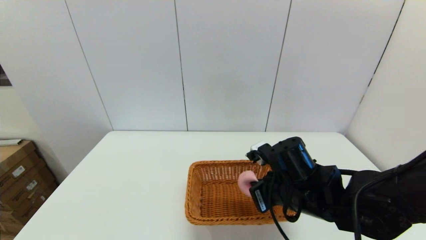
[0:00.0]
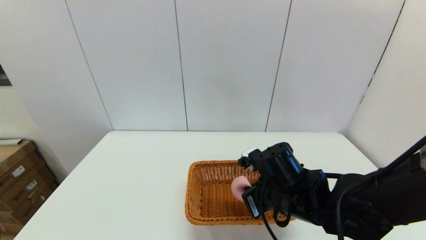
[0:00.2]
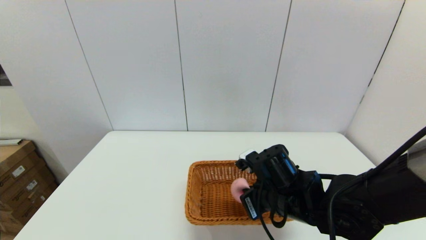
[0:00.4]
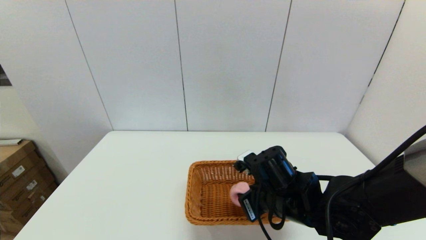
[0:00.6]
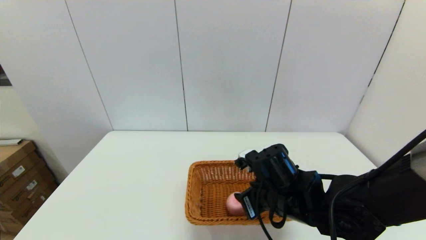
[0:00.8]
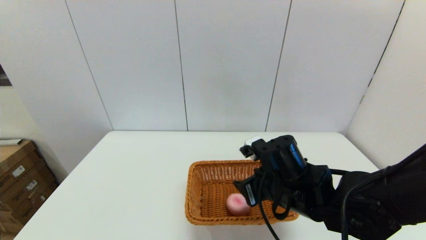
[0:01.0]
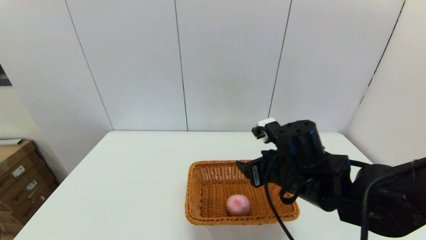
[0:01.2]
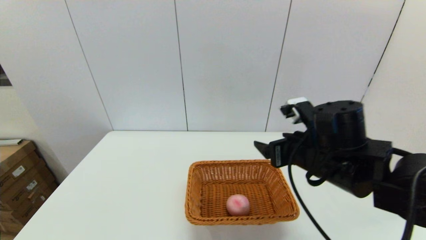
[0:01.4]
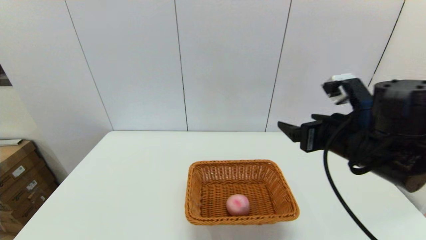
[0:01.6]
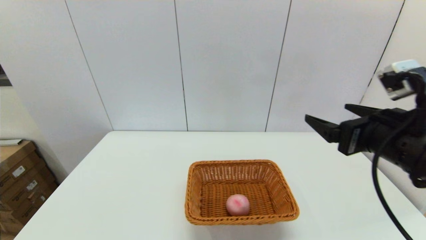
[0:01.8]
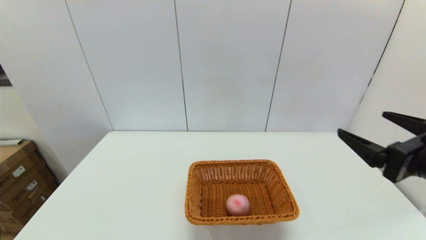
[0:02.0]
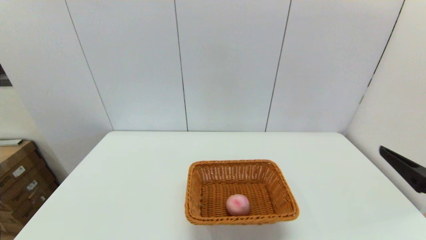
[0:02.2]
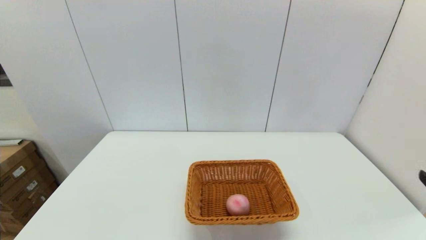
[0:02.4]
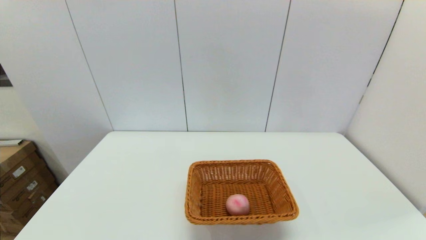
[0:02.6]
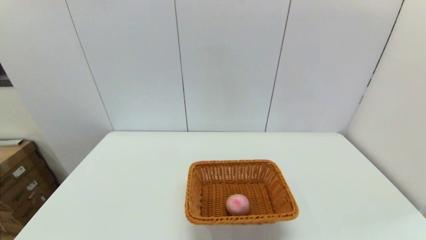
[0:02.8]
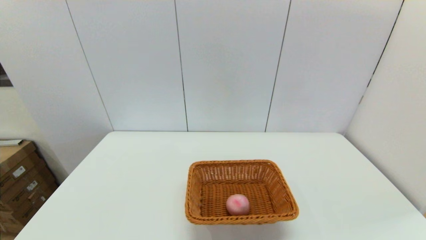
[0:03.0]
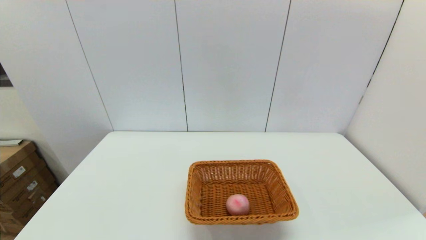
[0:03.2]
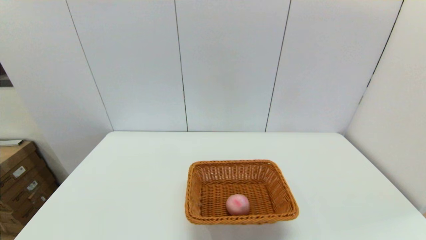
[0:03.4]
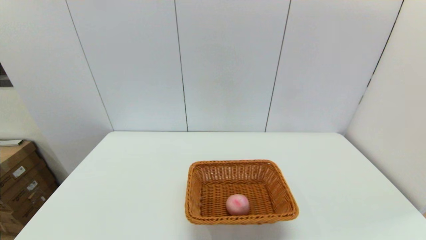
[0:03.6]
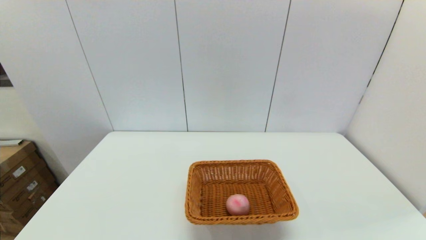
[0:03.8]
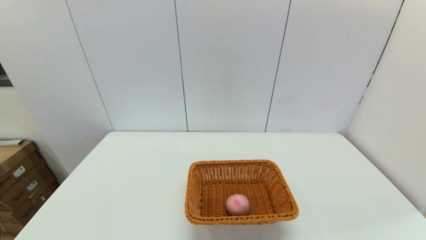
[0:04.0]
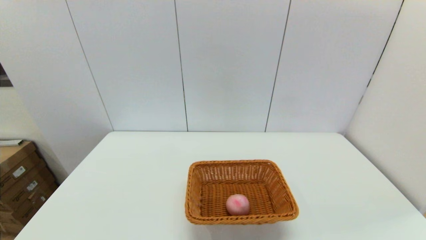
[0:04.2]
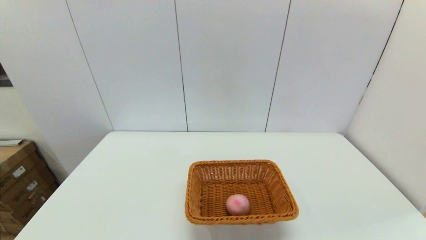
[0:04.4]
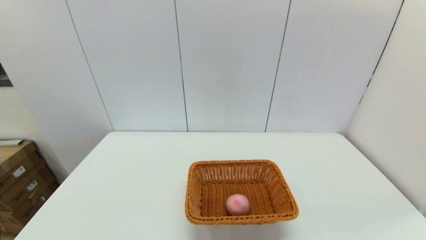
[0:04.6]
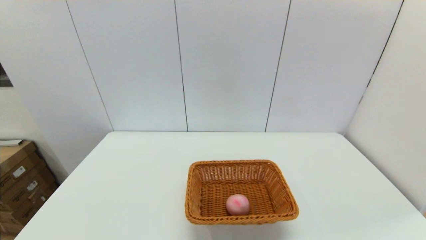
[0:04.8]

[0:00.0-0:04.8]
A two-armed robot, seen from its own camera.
0:00.0 to 0:01.6: The right gripper travels upward and to the right by roughly 15 cm, and opens.
0:01.6 to 0:03.2: The right gripper heads backward and to the right, covering approximately 30 cm.

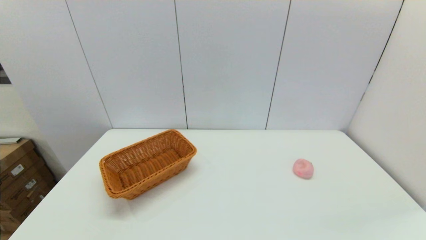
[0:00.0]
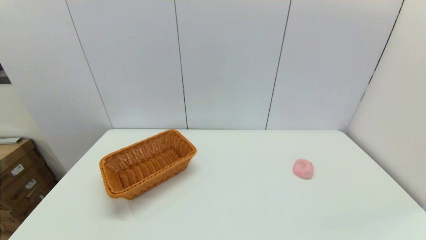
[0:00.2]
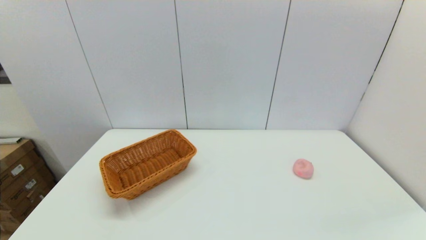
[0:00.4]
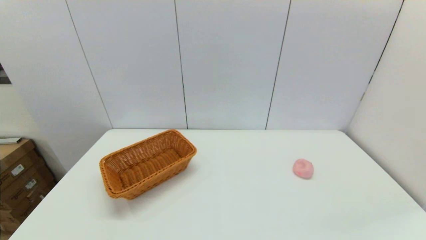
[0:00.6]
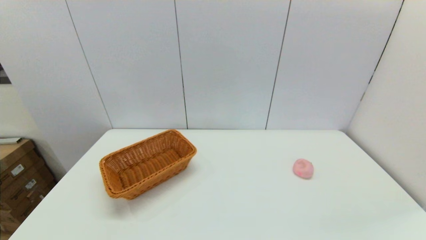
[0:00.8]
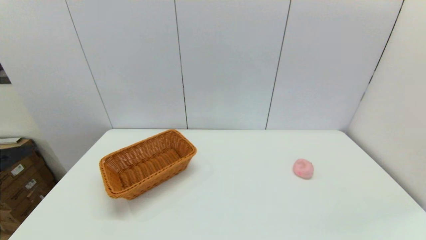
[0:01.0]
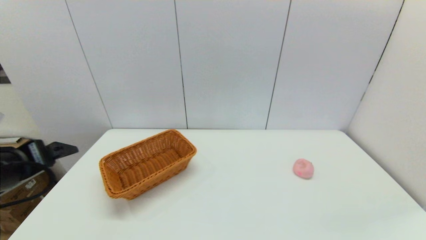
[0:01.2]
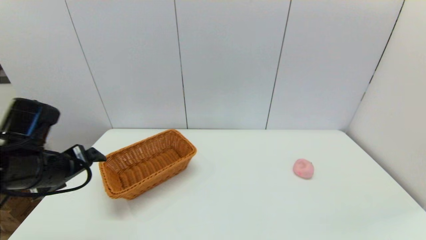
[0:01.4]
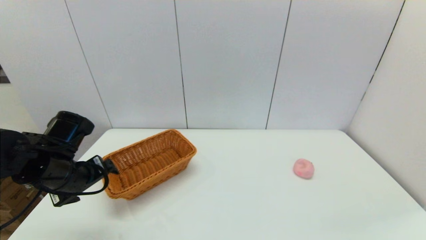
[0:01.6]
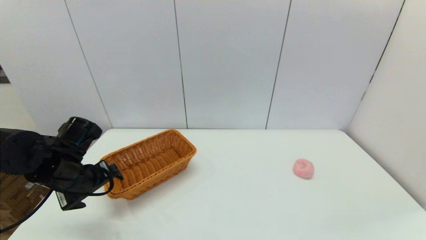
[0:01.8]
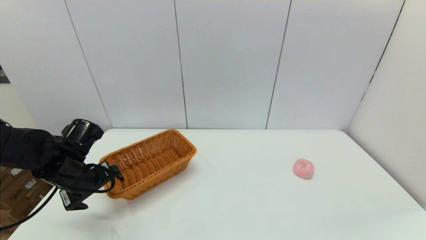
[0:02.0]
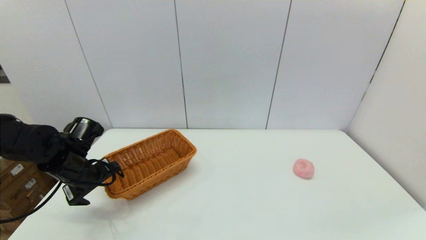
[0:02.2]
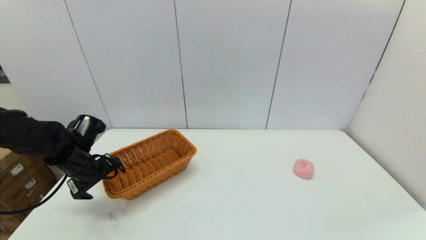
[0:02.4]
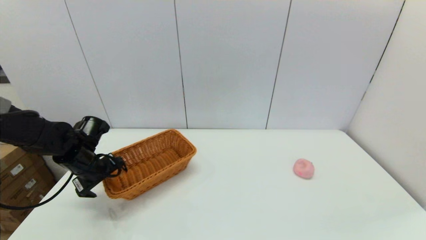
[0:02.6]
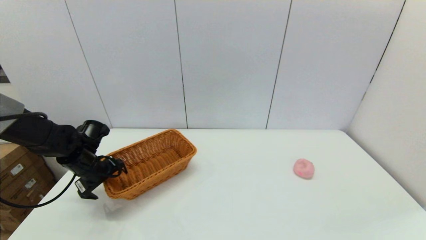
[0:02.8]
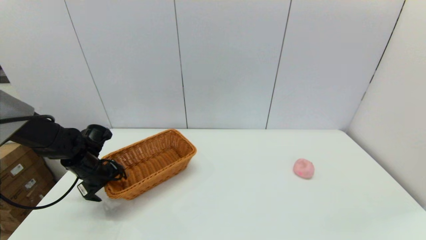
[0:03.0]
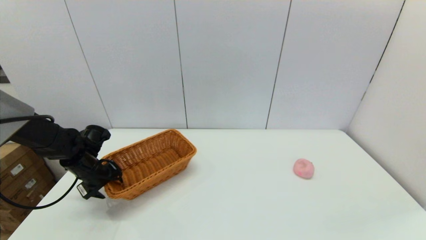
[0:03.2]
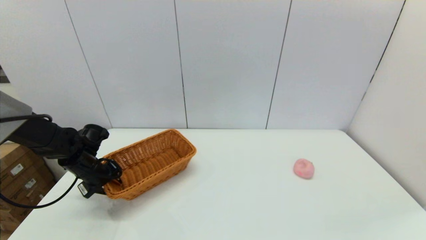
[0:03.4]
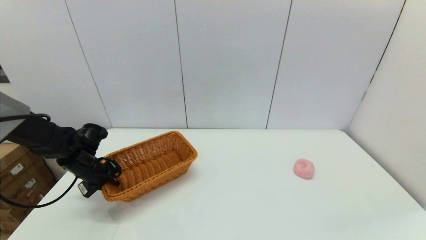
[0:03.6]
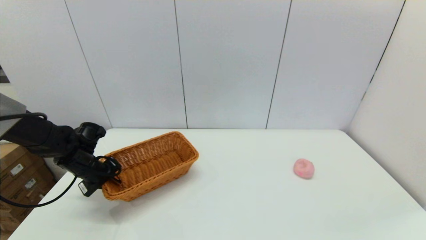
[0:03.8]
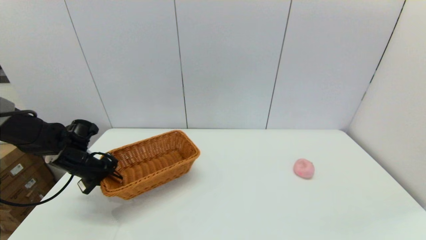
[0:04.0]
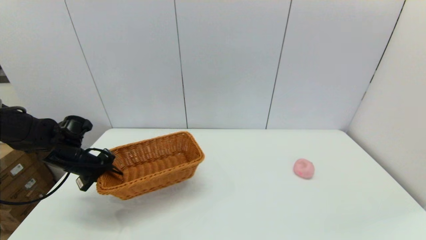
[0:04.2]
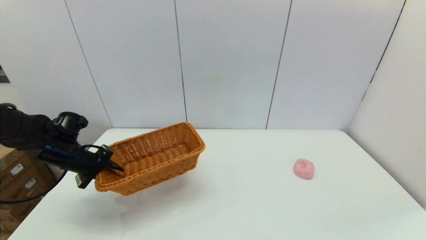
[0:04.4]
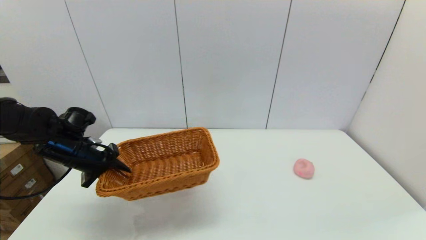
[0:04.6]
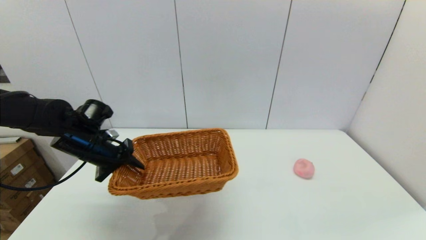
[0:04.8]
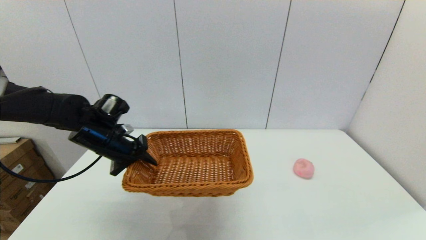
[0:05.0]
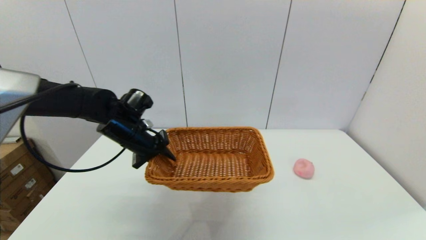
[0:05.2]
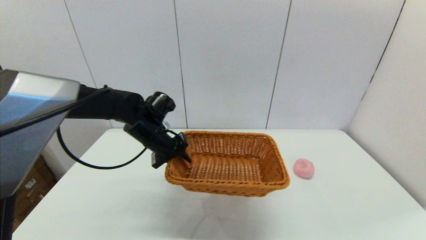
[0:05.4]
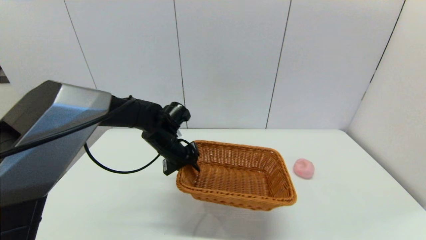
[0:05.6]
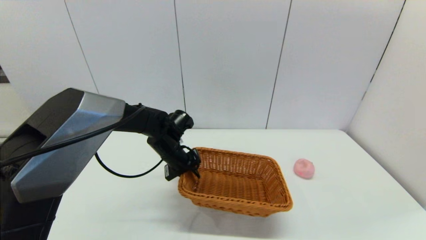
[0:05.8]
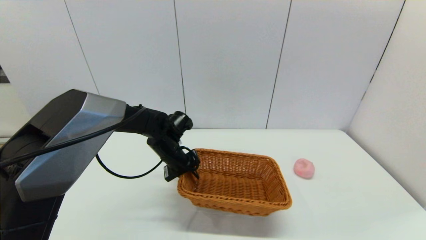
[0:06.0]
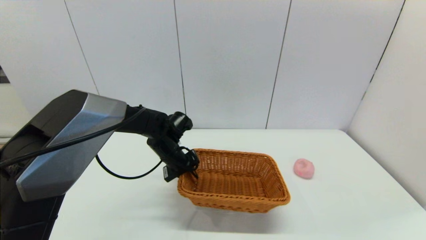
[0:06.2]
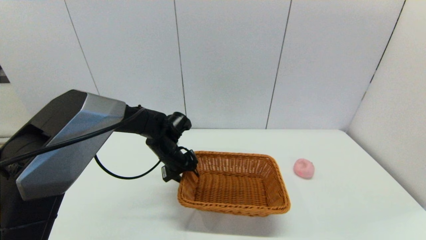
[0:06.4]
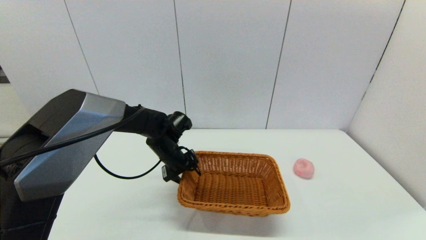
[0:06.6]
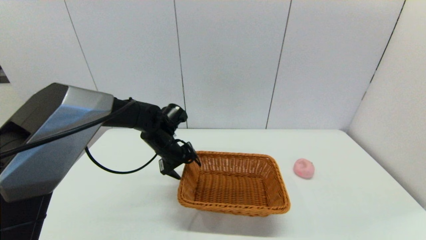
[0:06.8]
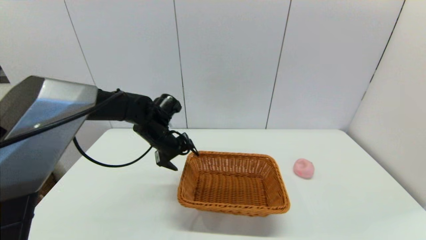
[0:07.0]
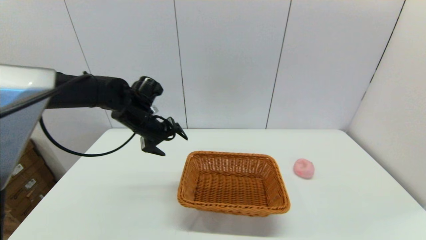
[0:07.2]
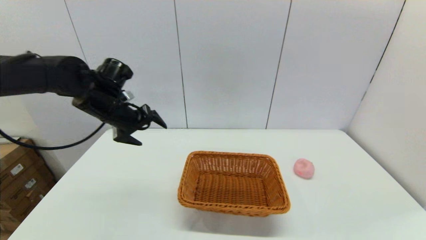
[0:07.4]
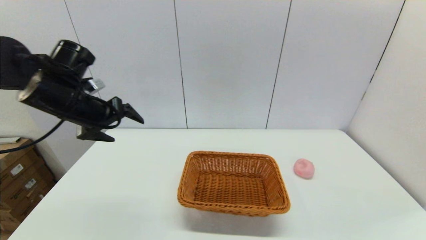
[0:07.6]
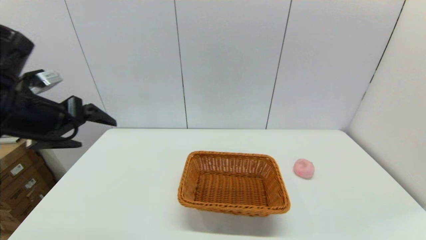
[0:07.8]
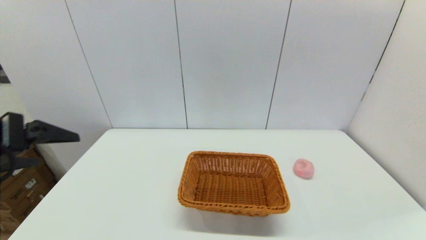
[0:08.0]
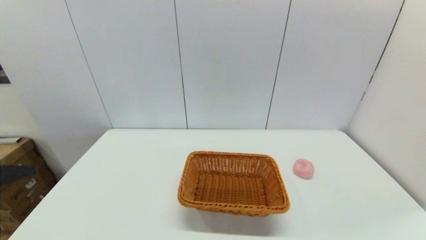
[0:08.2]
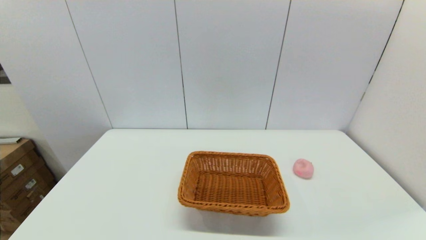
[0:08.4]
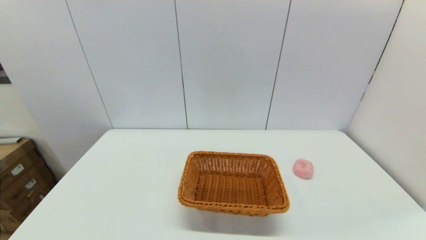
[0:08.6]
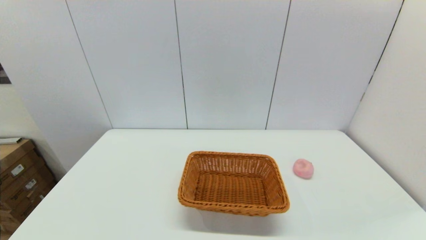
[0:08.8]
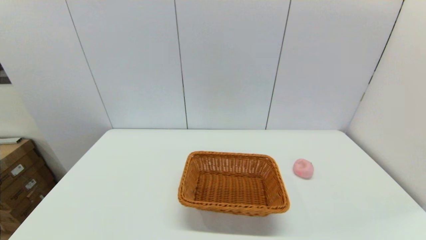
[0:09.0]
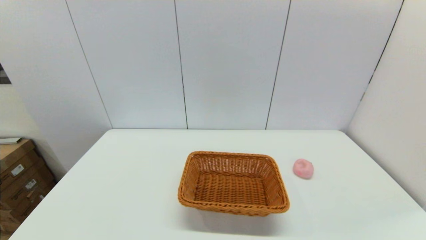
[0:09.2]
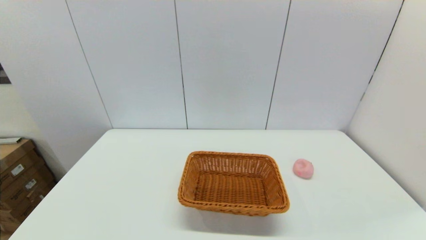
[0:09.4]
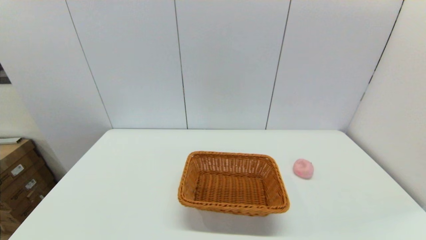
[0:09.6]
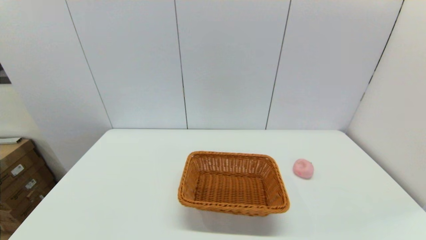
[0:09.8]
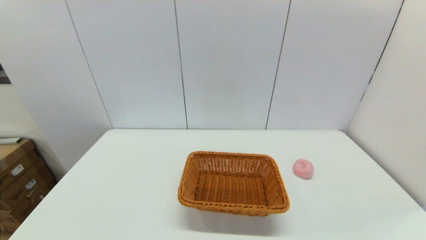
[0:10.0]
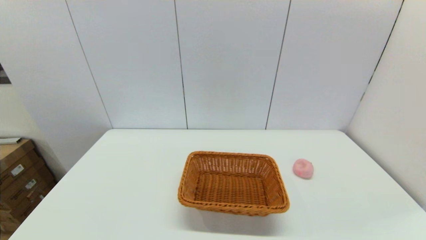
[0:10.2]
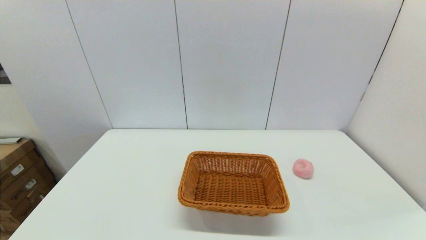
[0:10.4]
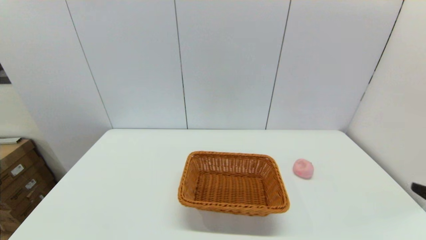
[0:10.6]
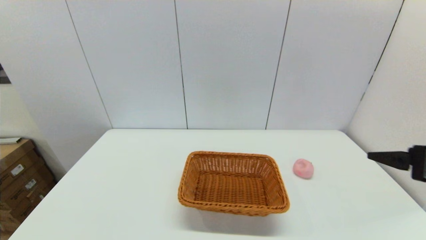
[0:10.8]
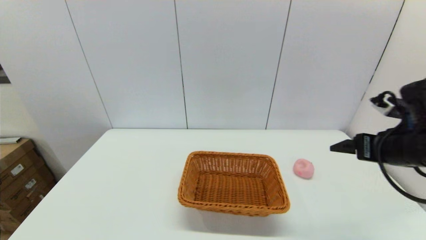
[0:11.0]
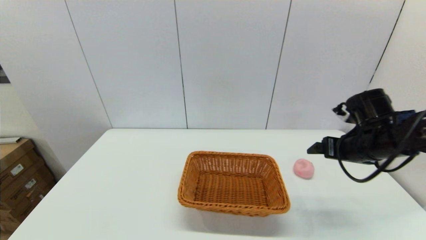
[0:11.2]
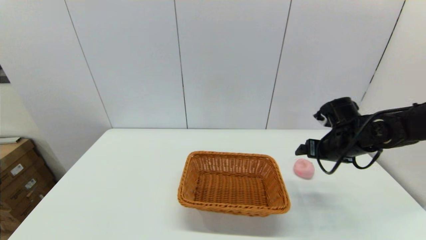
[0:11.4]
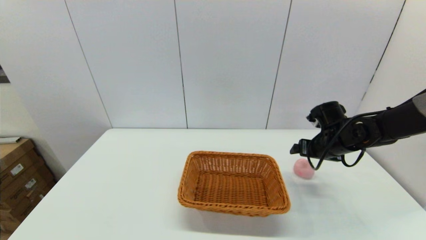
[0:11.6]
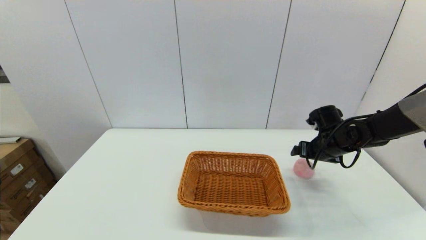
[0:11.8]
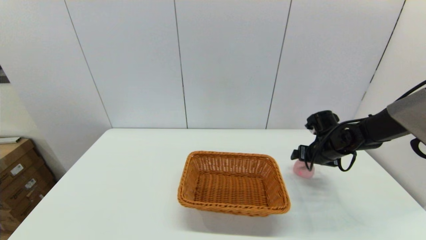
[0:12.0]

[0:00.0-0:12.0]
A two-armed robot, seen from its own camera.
Step, 0:00.0 to 0:03.8: Grasp the light basket with the left gripper.
Step, 0:04.2 to 0:06.4: Place the light basket on the middle of the table with the left gripper.
0:00.0 to 0:01.6: The left gripper moves forward, about 25 cm.
0:01.6 to 0:03.0: The left gripper goes approximately 15 cm forward and downward.
0:03.0 to 0:04.4: The left gripper changes place by roughly 5 cm, and closes.
0:04.4 to 0:06.0: The left gripper moves to the right, approximately 25 cm.
0:06.0 to 0:07.6: The left gripper goes about 25 cm upward, to the left and backward, and opens its fingers.
0:07.6 to 0:09.0: The left gripper is displaced backward by approximately 35 cm.
0:10.4 to 0:12.0: The right gripper travels forward by some 40 cm.
